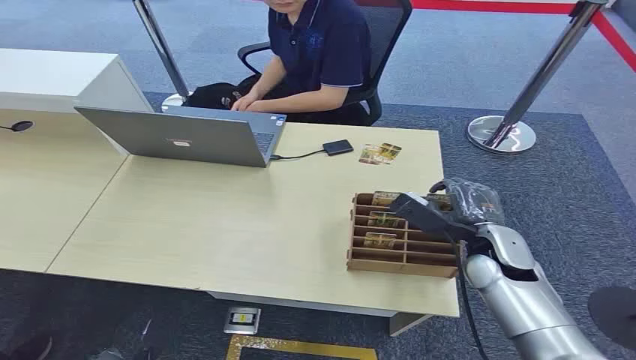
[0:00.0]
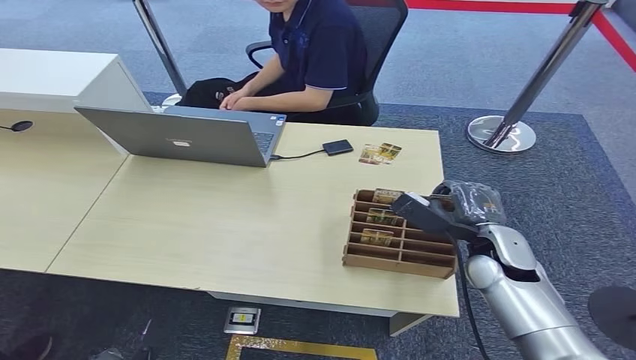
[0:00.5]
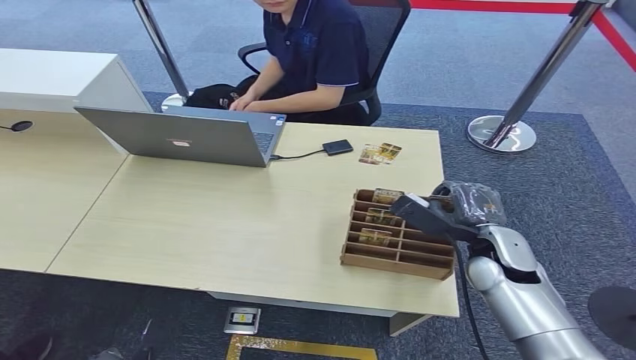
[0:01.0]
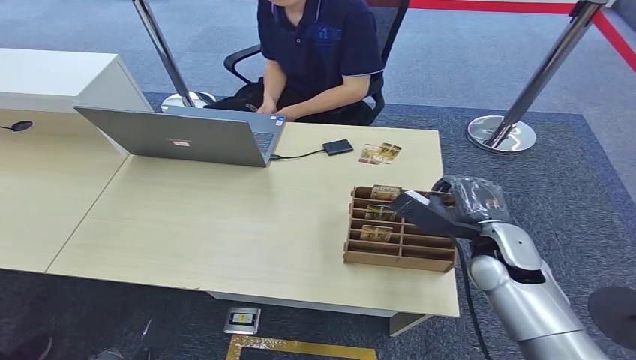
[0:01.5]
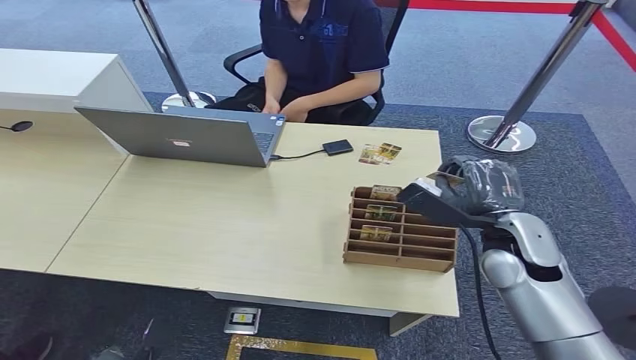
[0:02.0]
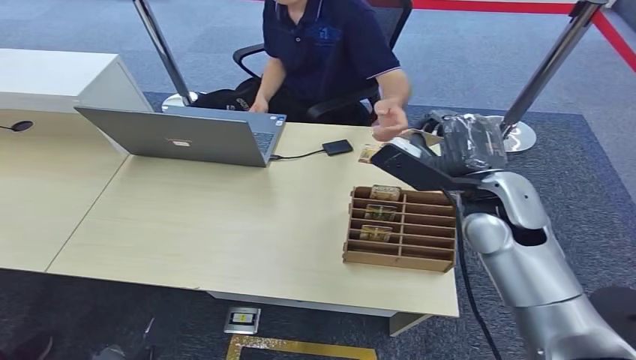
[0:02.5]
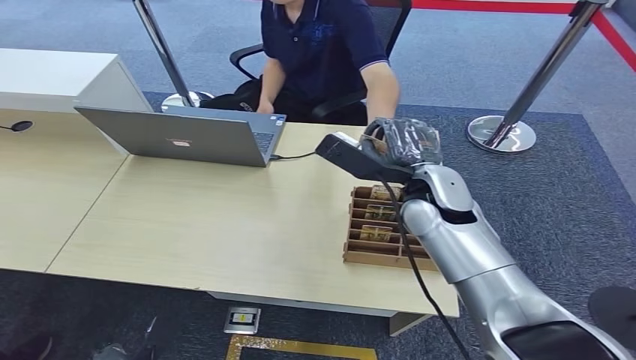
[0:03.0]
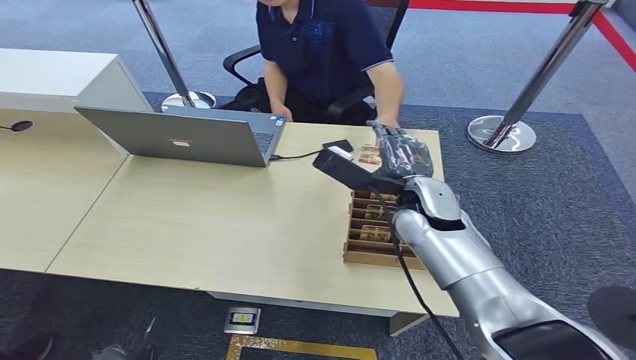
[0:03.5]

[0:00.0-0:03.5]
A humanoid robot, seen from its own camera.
Task of the whole recording: Pick up the card and hand it over to the target person.
Step, 0:00.0 to 0:02.0: Pick up the key card from the card box.
Step, 0:02.5 to 0:03.5: Hand the key card to the target.
0:02.0 to 0:03.5: The right hand moves to the left, approximately 5 cm.
